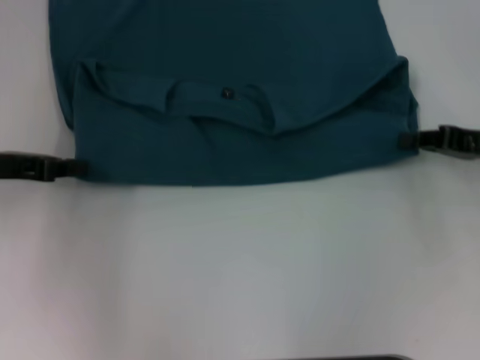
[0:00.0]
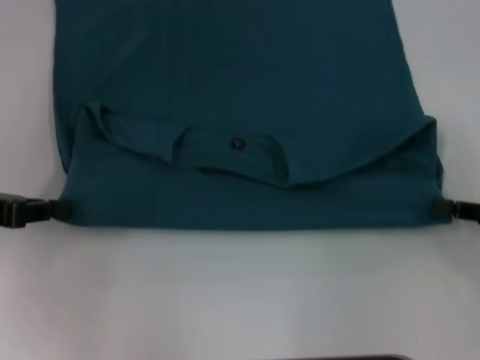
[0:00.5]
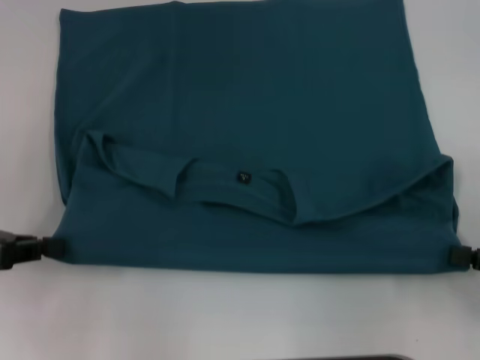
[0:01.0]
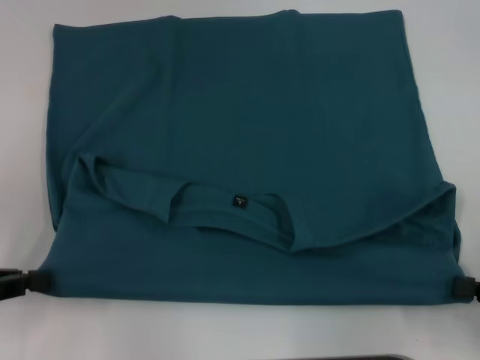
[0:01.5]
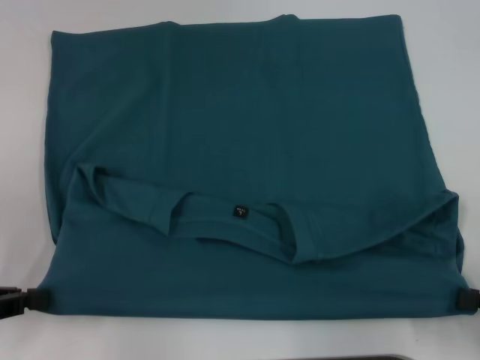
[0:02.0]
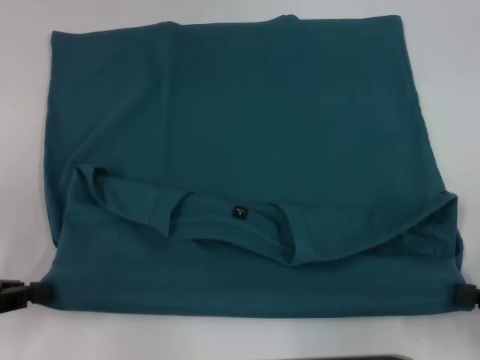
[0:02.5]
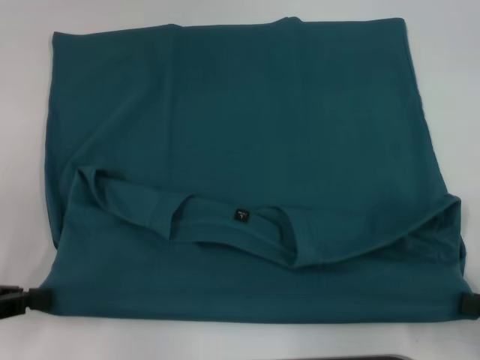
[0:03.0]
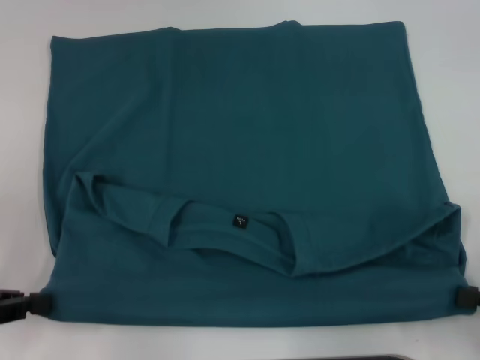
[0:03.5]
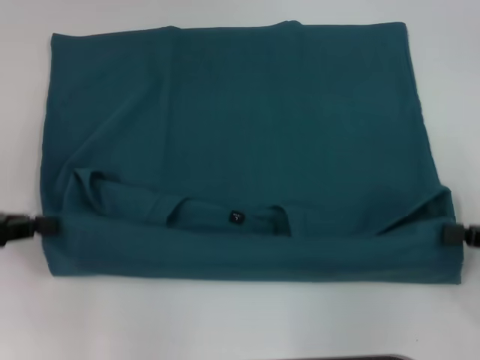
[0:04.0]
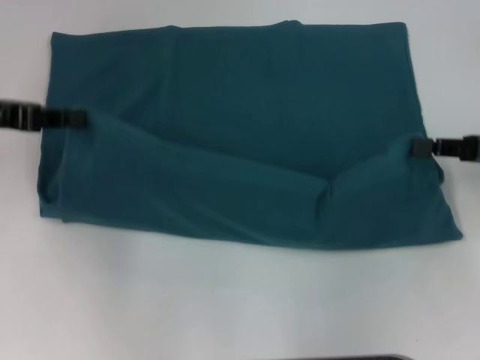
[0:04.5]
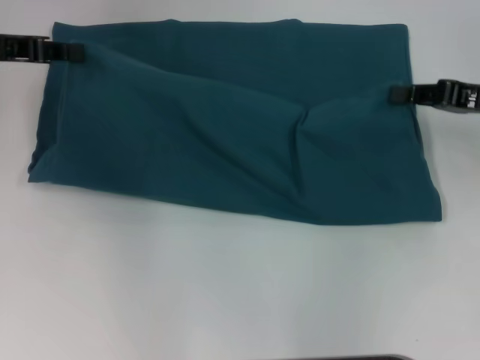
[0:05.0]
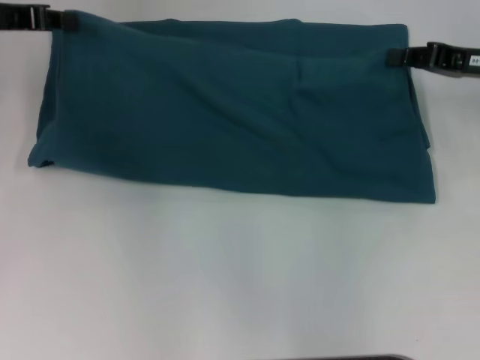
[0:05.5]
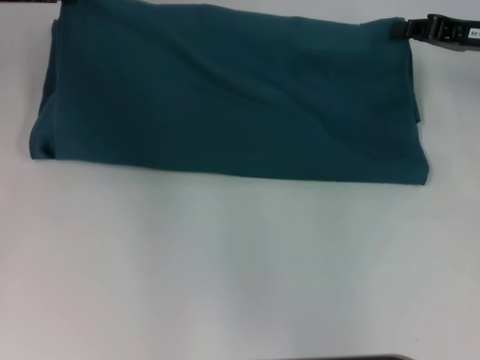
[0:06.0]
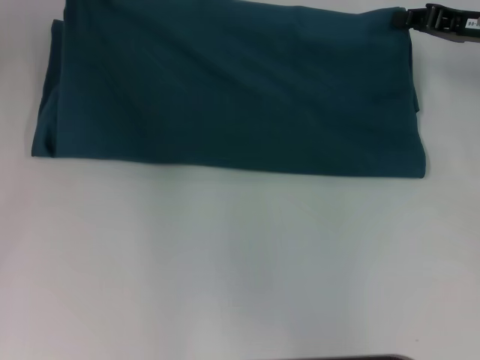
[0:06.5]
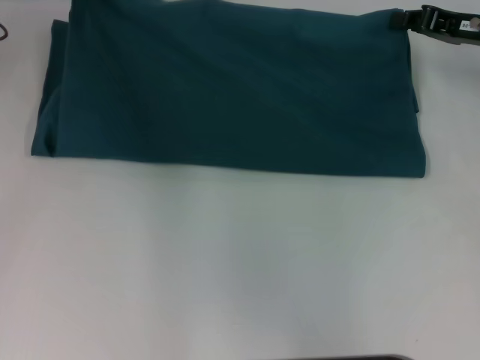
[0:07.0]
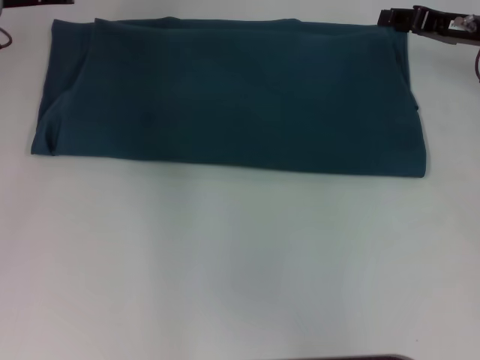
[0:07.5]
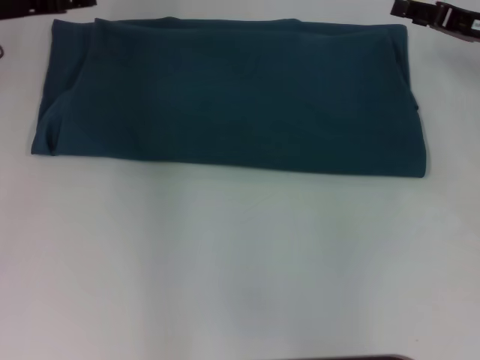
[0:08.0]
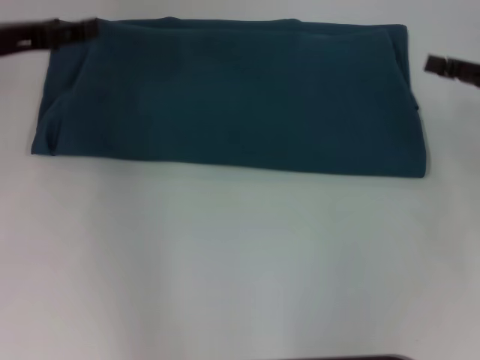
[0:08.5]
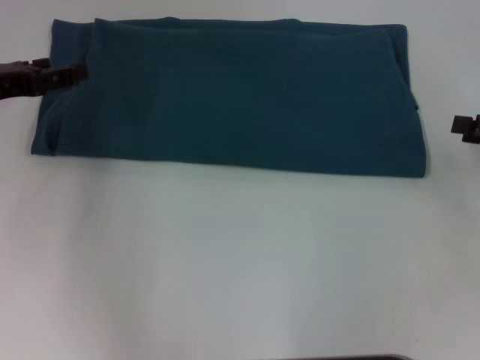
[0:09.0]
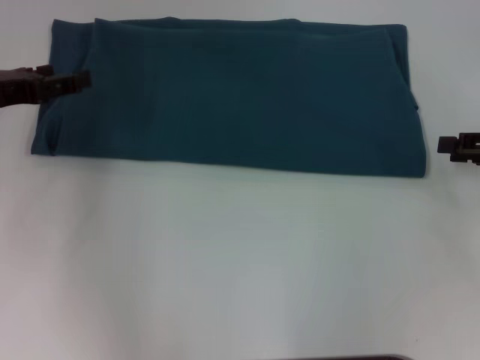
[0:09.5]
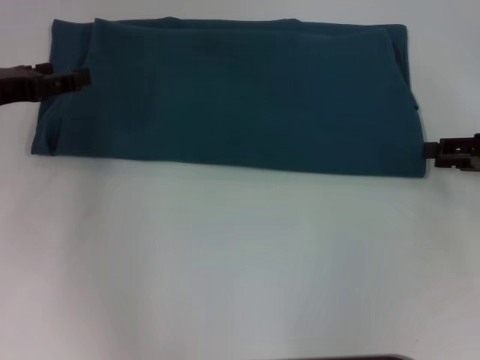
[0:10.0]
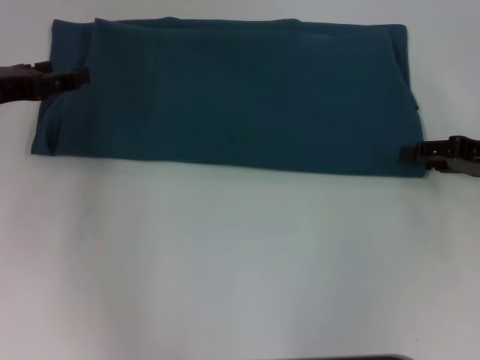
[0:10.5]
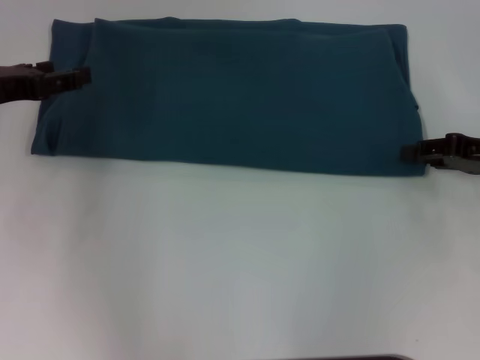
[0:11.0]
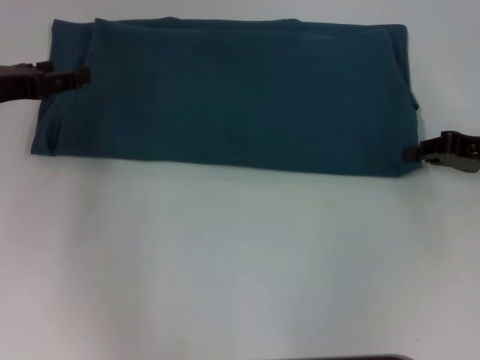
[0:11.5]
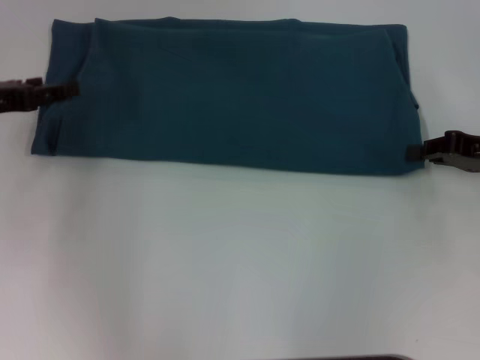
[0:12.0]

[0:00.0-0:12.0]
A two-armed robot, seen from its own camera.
Step, 0.0 to 3.0 s: Pull the clothes with your left hand.
Step, 0.0 to 3.0 s: Pull the clothes with your right hand.
Step, 3.5 to 7.5 s: Fold the clothes to the left.
Step, 3.5 to 7.5 s: Fold the clothes to the right.
0.0 to 2.0 s: Both grippers travel together backward, about 15 cm.
2.0 to 4.0 s: The two grippers go about 5 cm forward.
4.0 to 6.0 s: The right gripper moves forward, approximately 20 cm. The left gripper goes some 20 cm forward and upward.
6.0 to 8.0 s: The left gripper opens; the right gripper opens.
8.0 to 10.0 s: Both grippers travel together backward, roughly 10 cm.

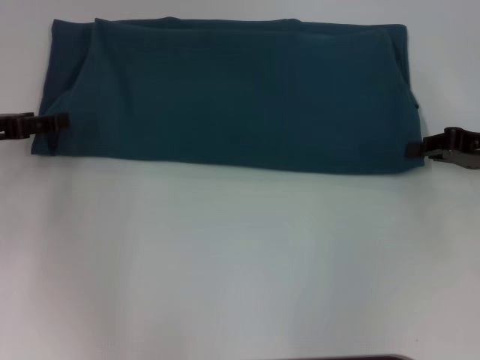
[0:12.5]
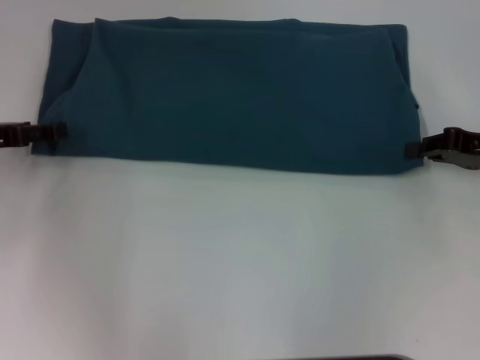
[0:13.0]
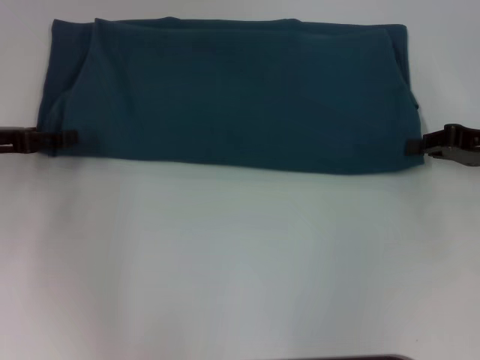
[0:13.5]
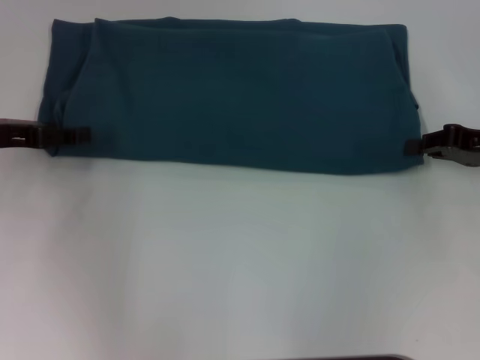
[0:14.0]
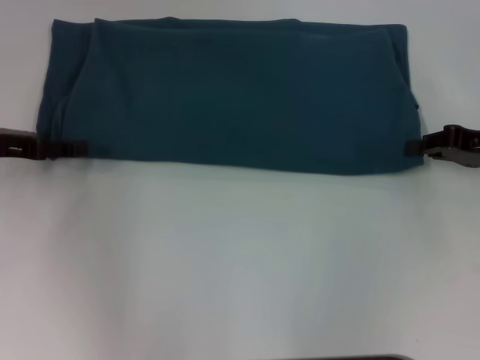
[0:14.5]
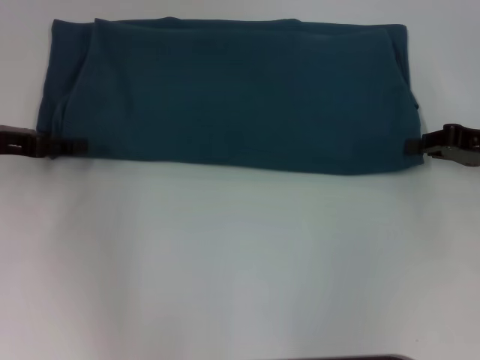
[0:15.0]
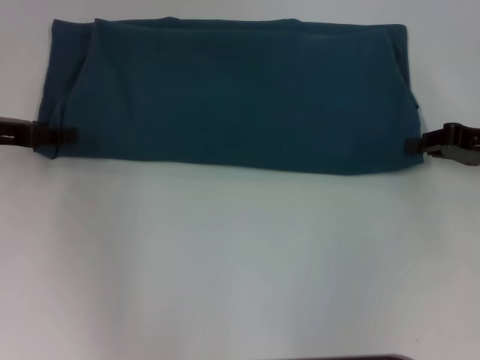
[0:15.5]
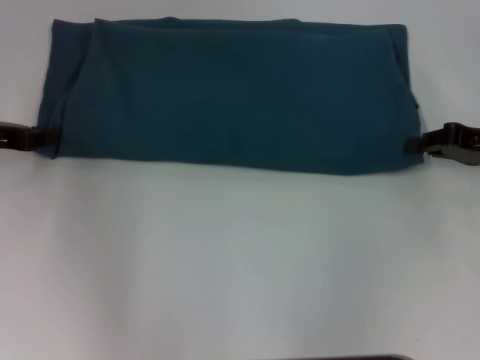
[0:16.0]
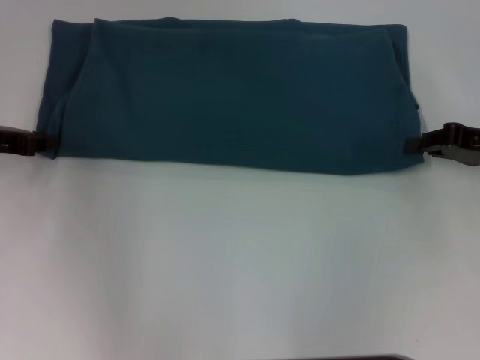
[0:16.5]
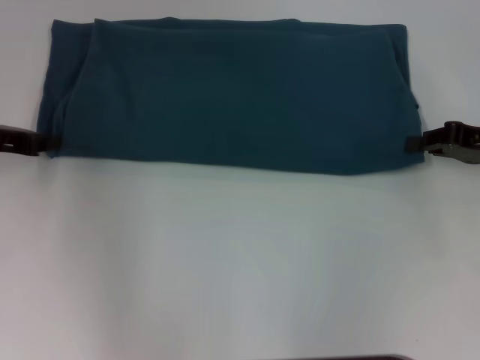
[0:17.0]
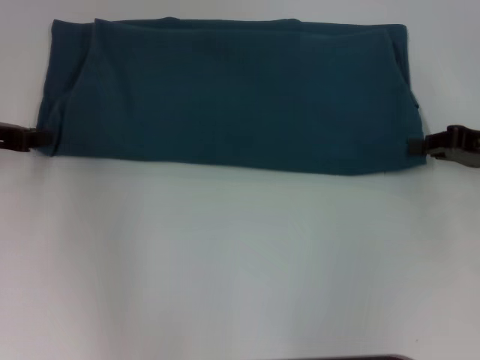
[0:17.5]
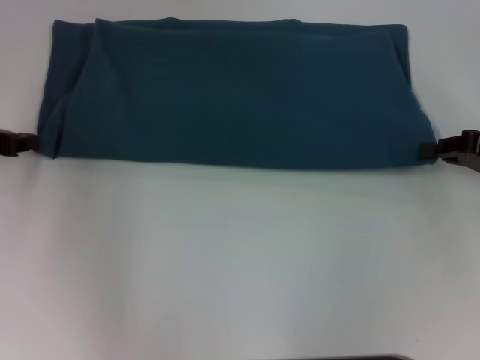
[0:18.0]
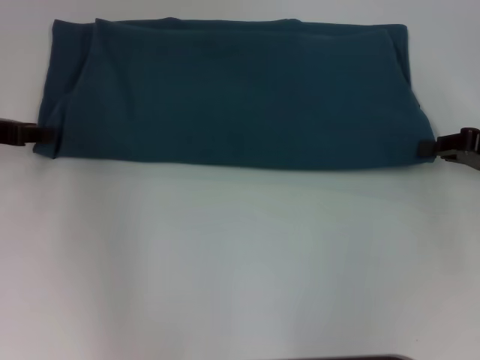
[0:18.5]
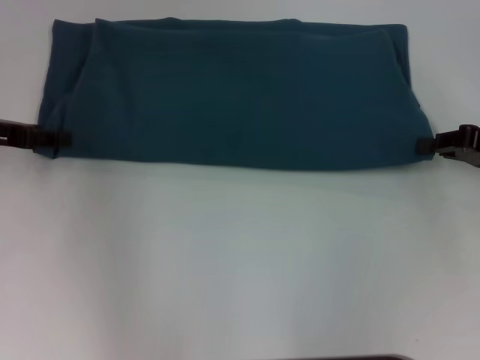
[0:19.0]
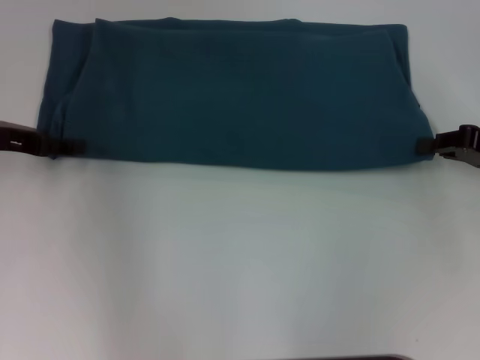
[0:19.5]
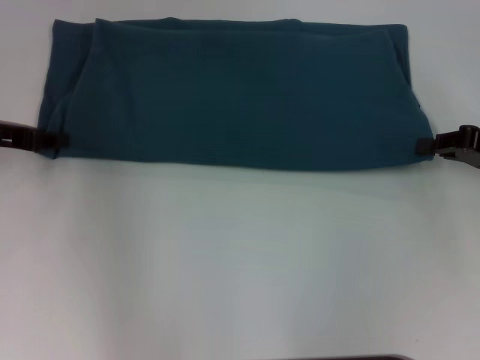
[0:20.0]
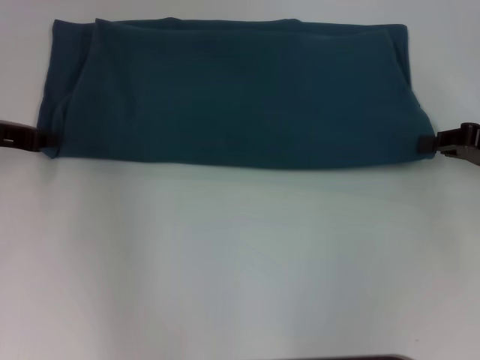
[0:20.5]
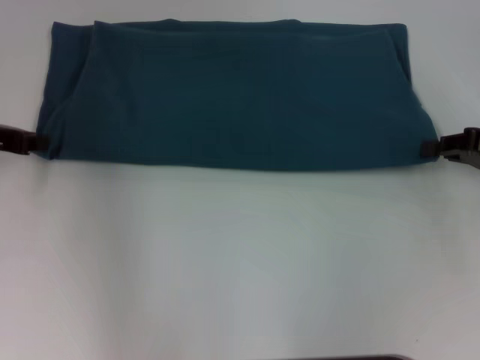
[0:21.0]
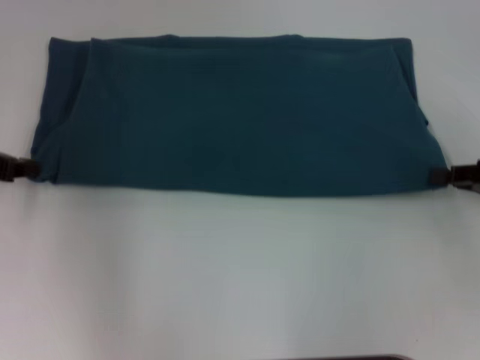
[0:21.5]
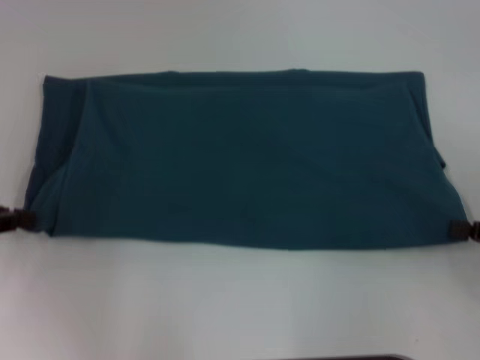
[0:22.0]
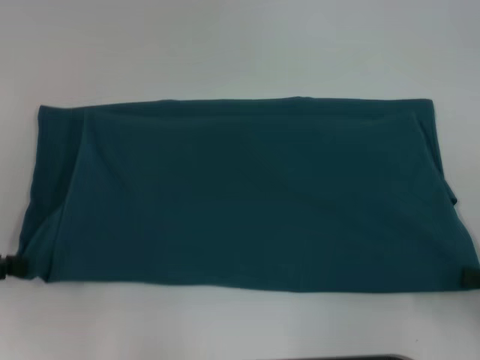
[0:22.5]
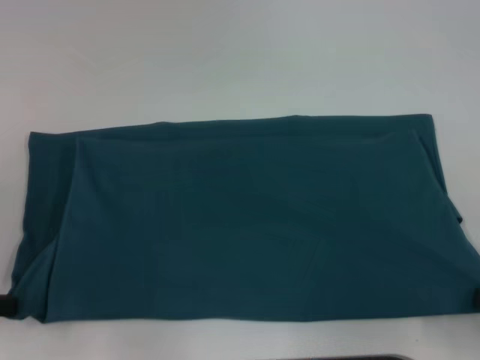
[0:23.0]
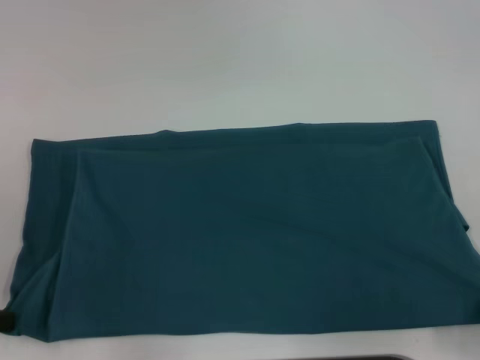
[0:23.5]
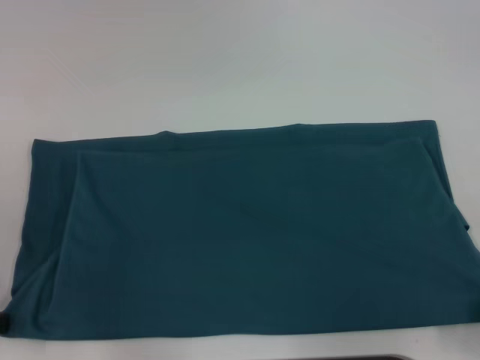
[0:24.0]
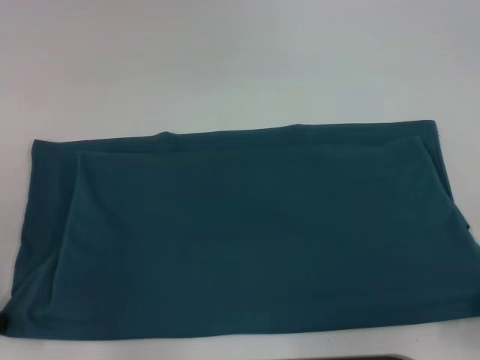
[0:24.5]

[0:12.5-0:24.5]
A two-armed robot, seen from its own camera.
12.5 to 14.5 s: There are only small adjustments of the grippers.
16.5 to 18.5 s: The grippers stay close to where they were, moving slightly.
20.5 to 22.5 s: The left gripper heads backward and to the left, covering about 15 cm. The right gripper shifts about 15 cm backward.
22.5 to 24.5 s: The left gripper shifts by roughly 5 cm.

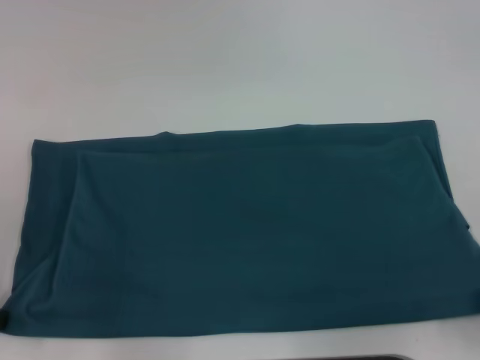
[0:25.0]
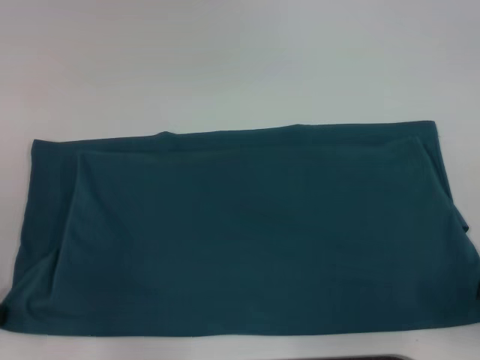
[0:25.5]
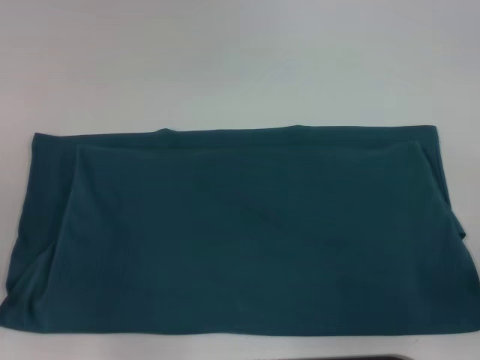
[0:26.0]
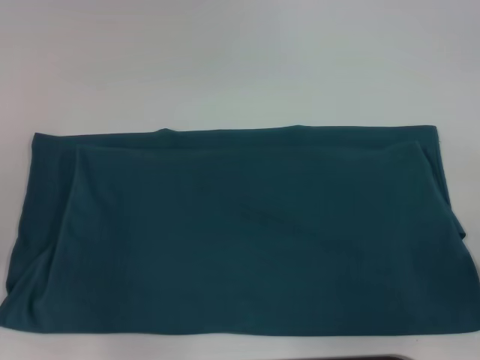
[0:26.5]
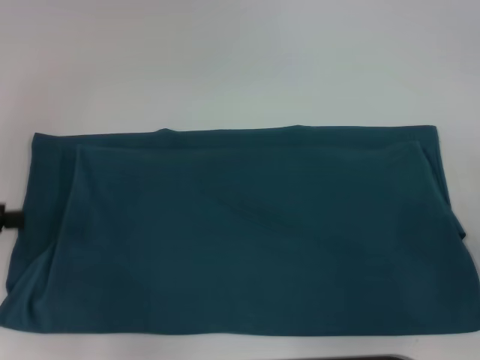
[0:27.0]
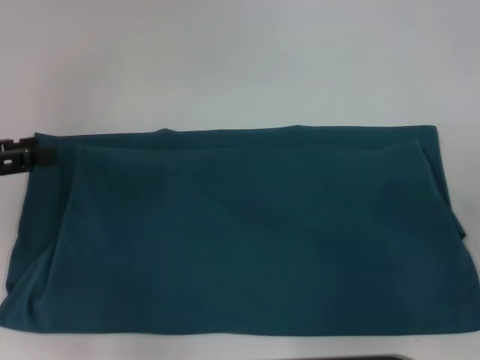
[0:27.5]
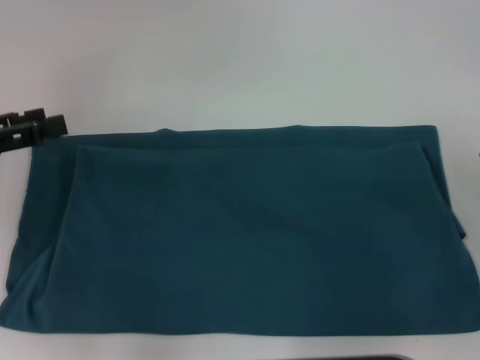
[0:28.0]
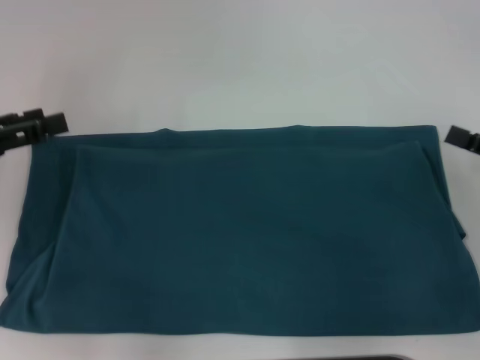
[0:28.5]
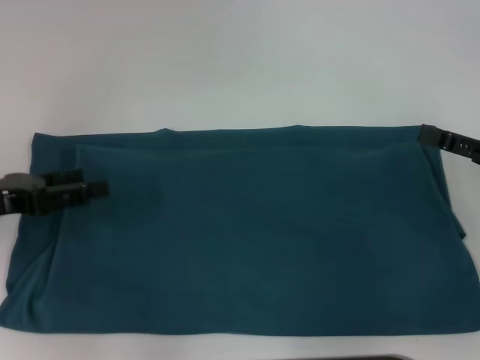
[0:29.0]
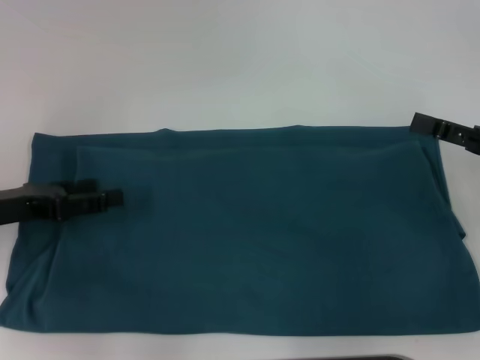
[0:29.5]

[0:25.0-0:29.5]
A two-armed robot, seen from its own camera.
25.0 to 27.0 s: The right gripper moves roughly 5 cm, and opens up; the left gripper travels forward by roughly 5 cm, and opens.
27.0 to 29.5 s: The left gripper moves to the right and downward, approximately 10 cm; the right gripper is displaced forward and to the left by roughly 10 cm, and opens.
